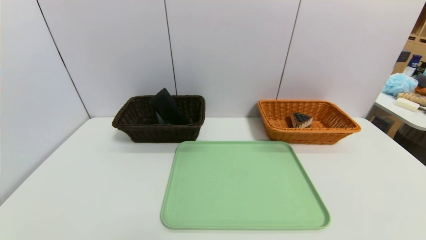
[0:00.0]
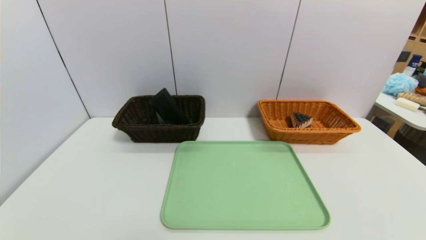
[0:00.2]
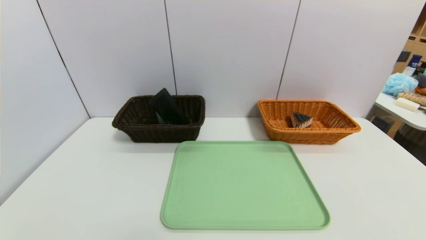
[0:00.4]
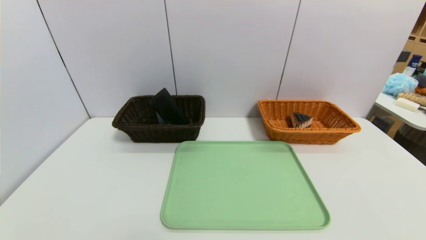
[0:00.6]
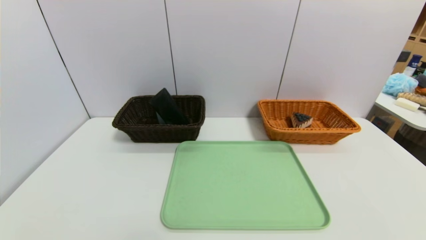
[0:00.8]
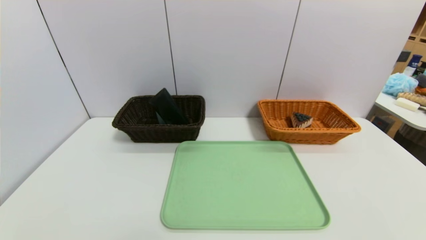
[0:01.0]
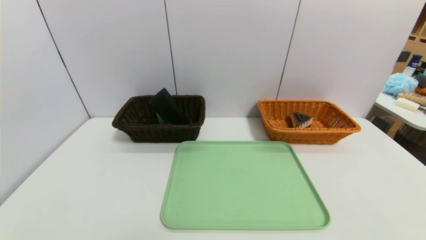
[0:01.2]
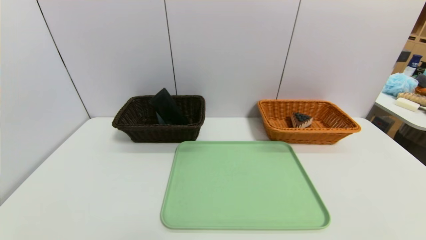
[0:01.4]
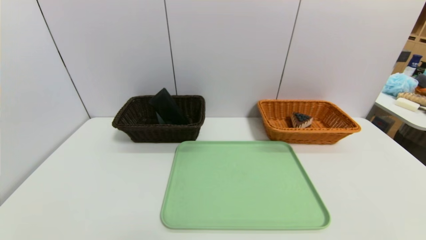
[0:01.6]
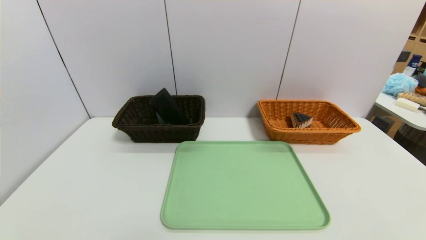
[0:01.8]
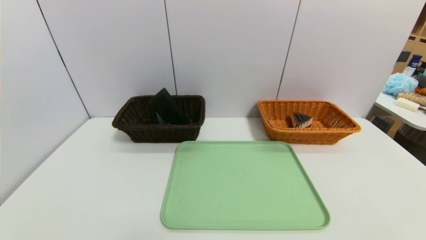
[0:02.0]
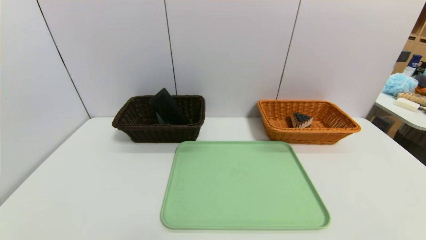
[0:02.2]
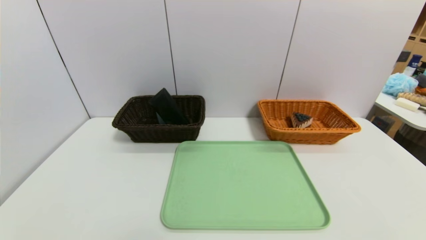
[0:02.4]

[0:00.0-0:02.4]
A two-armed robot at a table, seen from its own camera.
Task of the whole recording: place the food in the right basket with the right gripper, and place the non food items in the left basket with the left gripper.
0:01.2 to 0:02.4: Neither gripper changes place.

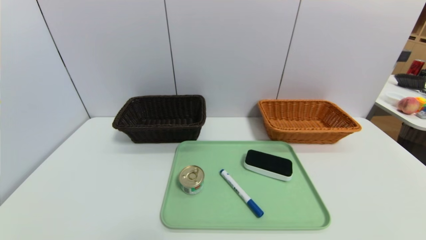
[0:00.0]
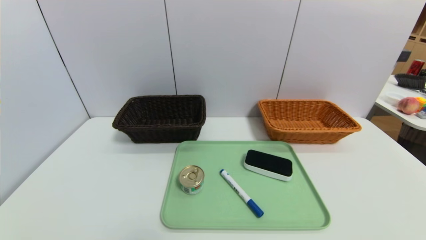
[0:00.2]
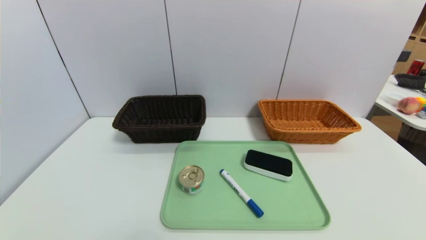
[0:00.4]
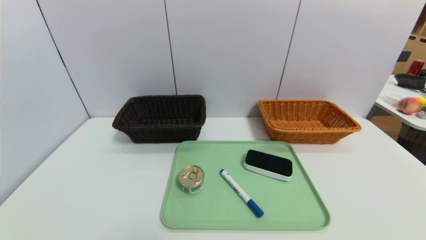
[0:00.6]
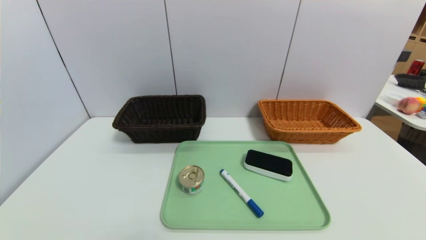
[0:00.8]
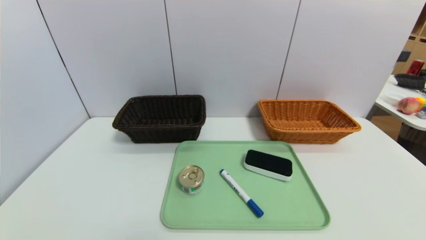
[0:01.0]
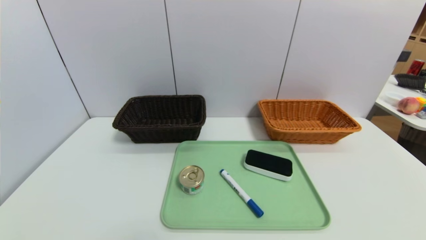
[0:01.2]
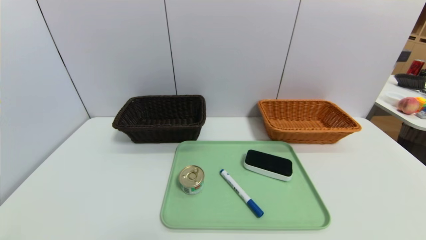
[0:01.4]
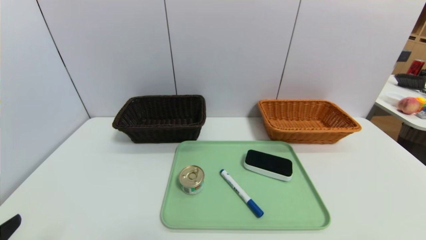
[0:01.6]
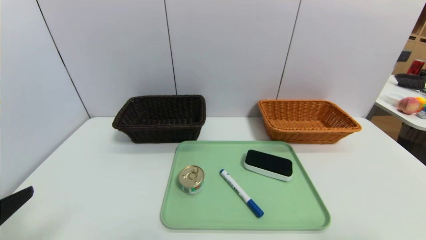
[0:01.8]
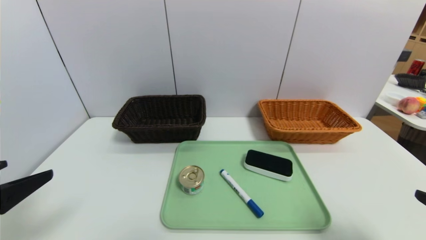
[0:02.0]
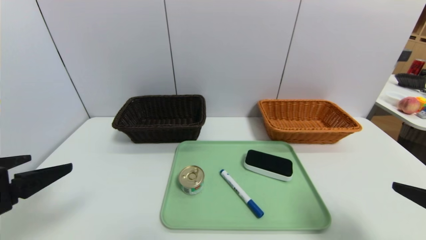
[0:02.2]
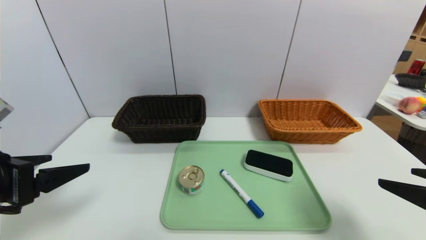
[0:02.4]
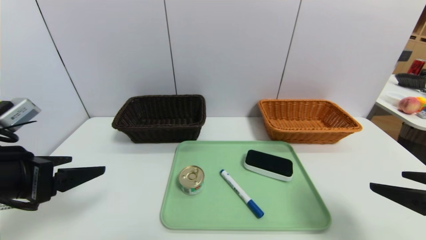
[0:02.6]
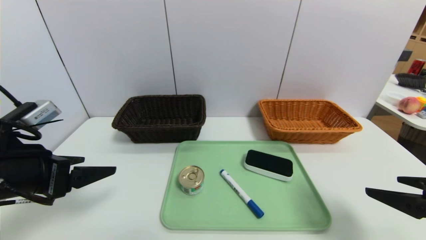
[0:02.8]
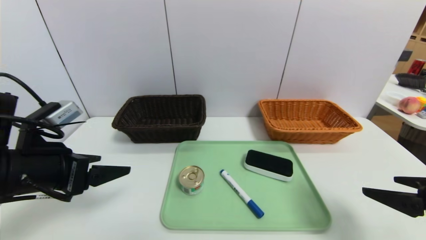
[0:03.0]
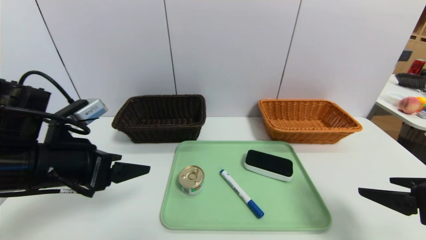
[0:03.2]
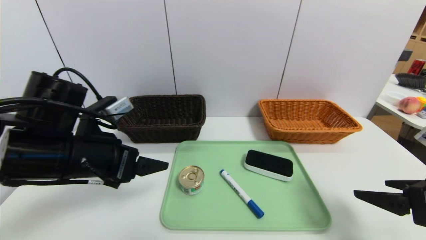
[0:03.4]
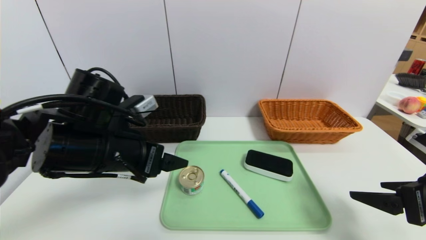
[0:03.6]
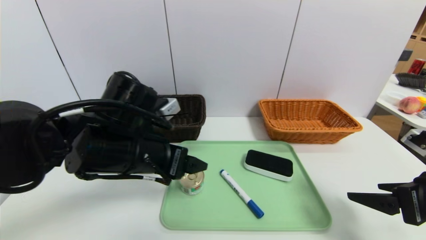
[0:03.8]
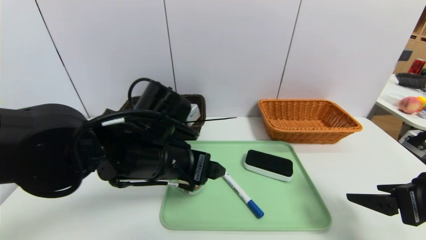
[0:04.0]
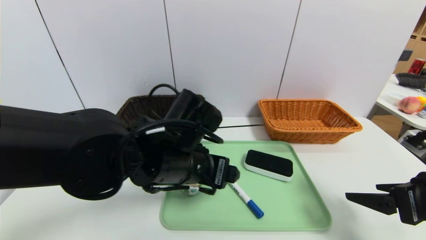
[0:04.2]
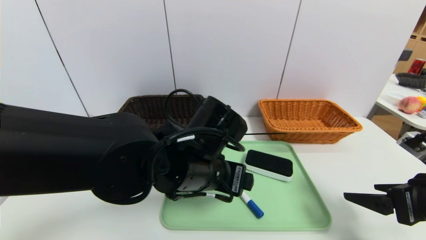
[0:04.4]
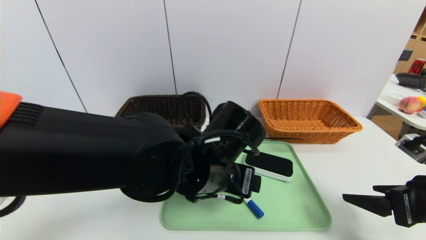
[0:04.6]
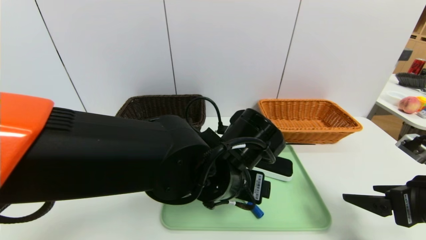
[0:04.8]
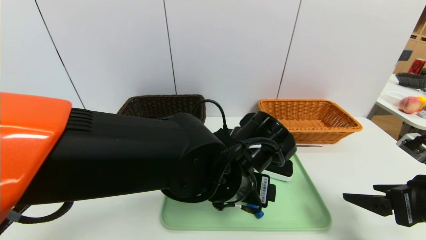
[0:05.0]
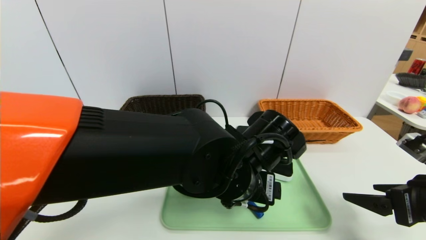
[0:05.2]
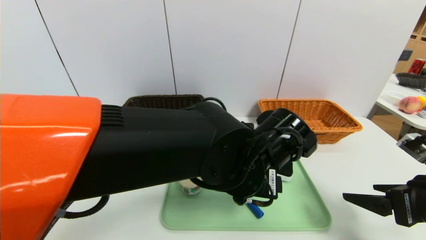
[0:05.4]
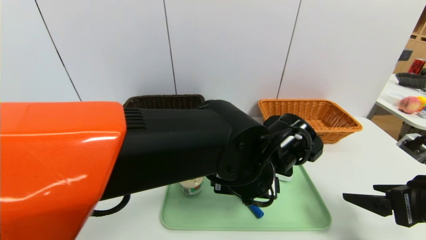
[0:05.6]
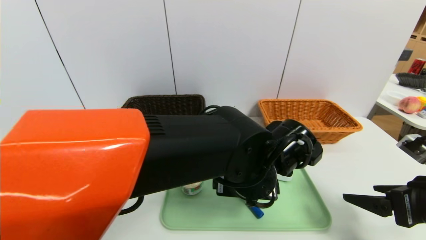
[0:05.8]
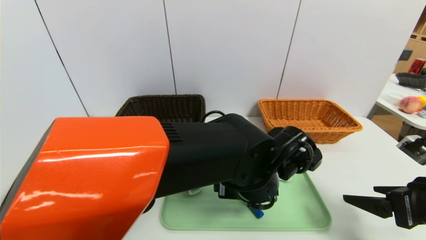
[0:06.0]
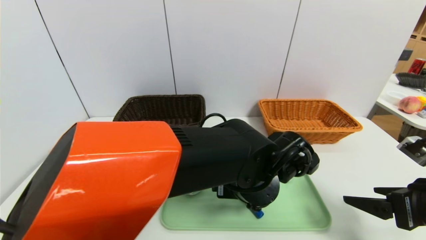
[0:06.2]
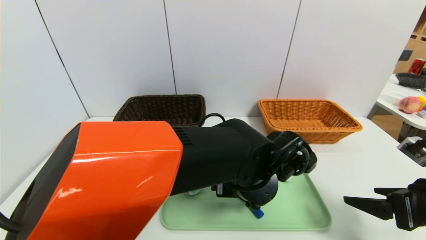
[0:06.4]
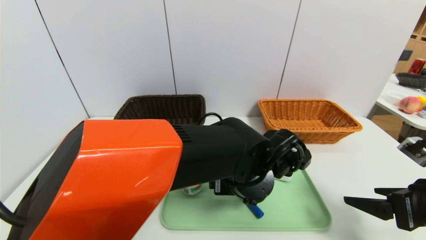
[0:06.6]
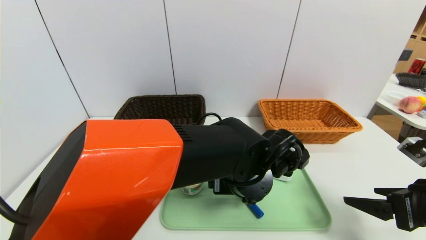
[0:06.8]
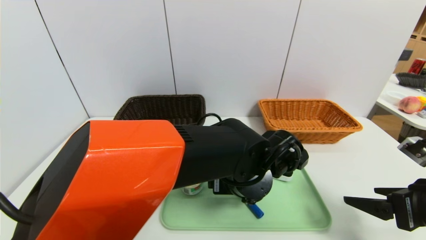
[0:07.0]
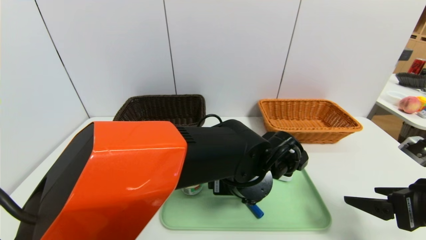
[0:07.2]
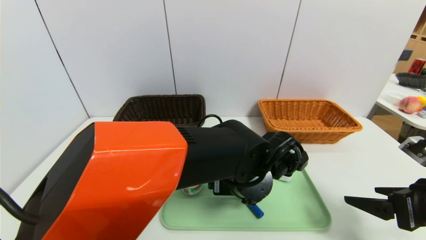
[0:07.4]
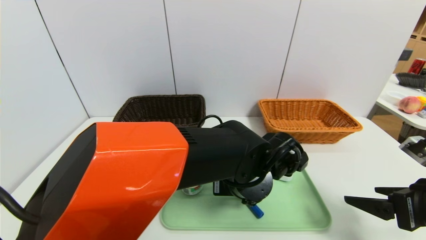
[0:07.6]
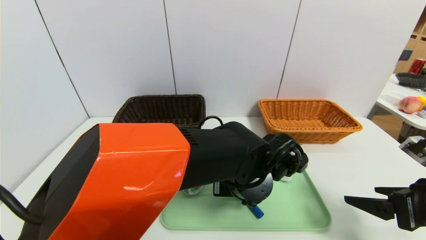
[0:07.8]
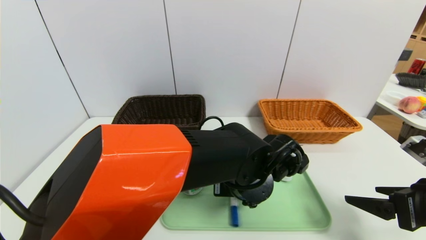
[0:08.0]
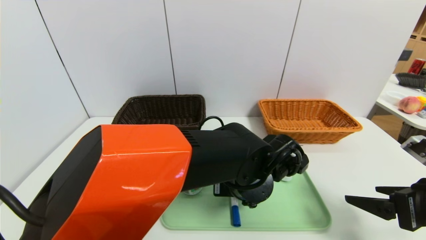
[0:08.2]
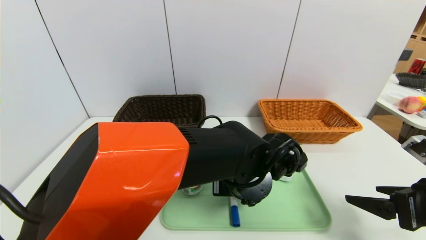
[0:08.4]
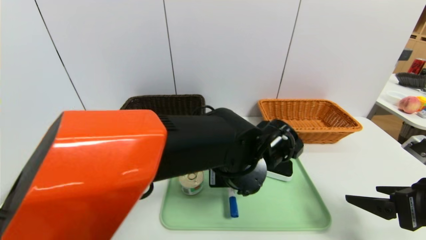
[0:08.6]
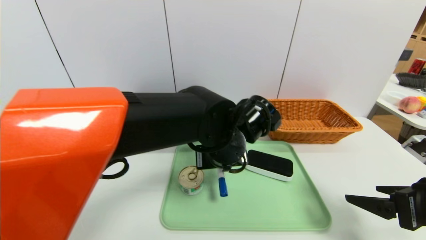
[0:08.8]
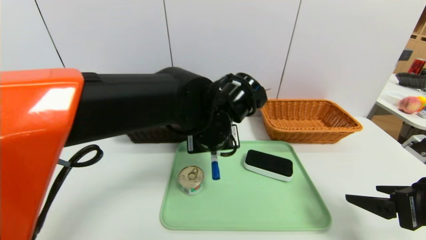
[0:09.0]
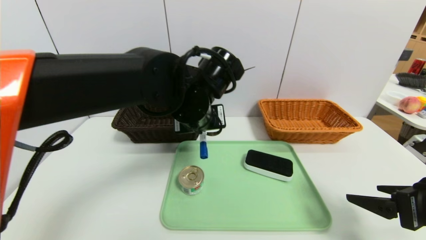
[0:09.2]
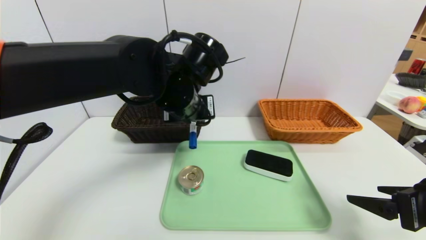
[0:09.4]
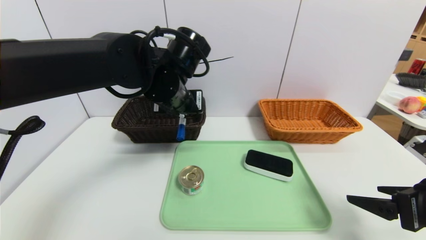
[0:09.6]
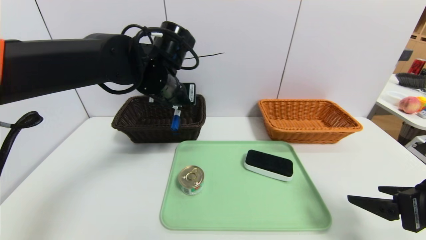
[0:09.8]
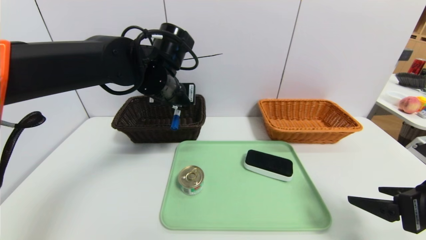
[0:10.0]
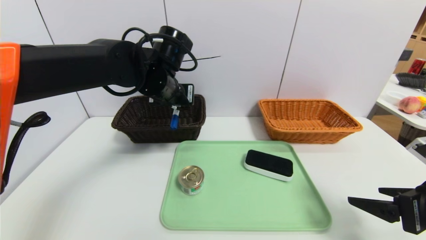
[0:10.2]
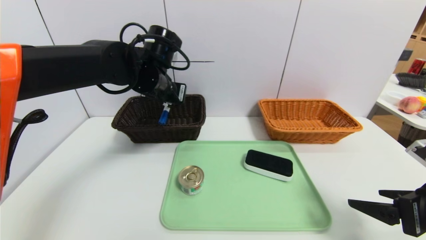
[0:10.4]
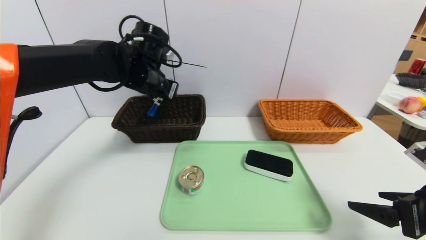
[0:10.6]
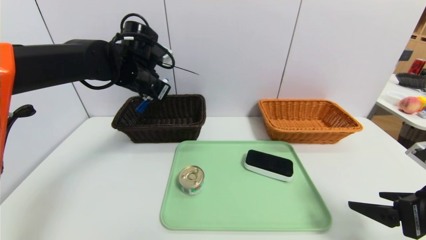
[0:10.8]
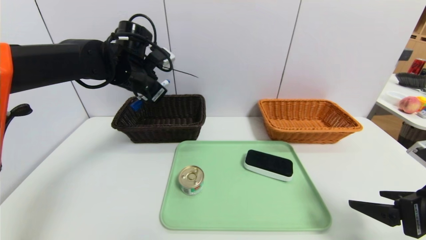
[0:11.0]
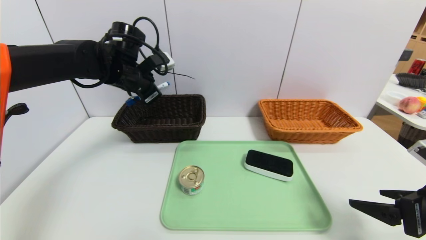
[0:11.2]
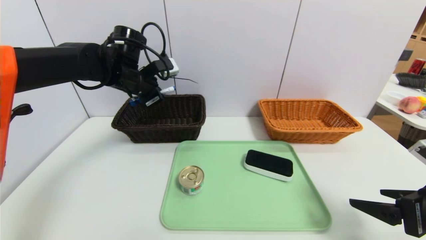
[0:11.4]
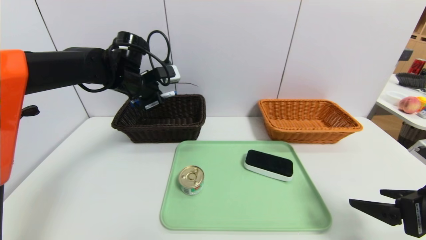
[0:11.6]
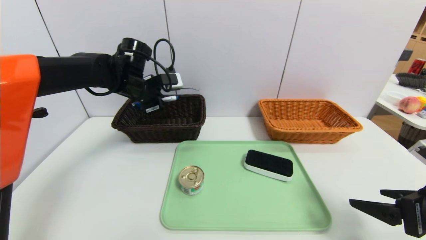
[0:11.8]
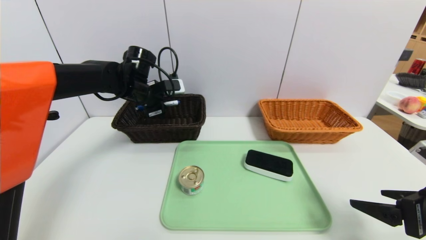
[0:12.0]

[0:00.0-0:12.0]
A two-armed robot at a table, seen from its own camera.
Task of the whole recording: place the food in the right basket with the right gripper, and place the non food items in the left basket with the left gripper.
0:01.6 to 0:03.0: The grippers both shift forward by some 15 cm.
0:03.0 to 0:04.4: The left gripper is displaced to the right by roughly 25 cm.
0:04.4 to 0:06.0: The left gripper moves to the right, approximately 10 cm.
0:06.0 to 0:07.6: The grippers stay close to where they were, moving slightly.
0:07.6 to 0:09.0: The left gripper moves upward and to the left, some 10 cm, and closes.
0:09.0 to 0:10.4: The left gripper shifts some 15 cm to the left and forward.
0:10.4 to 0:12.0: The left gripper shifts approximately 10 cm forward and to the left.

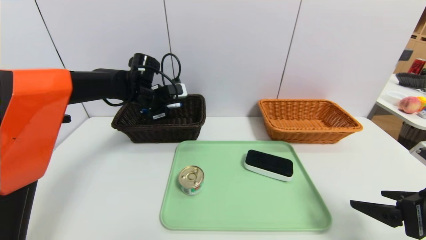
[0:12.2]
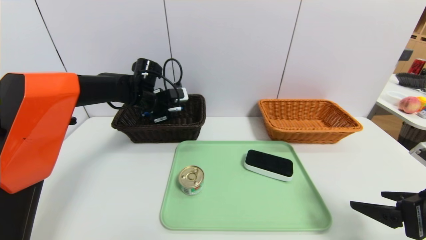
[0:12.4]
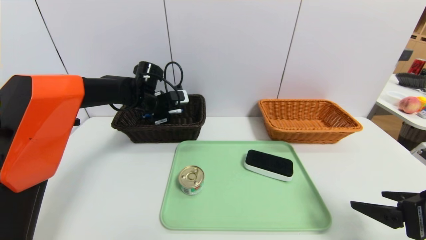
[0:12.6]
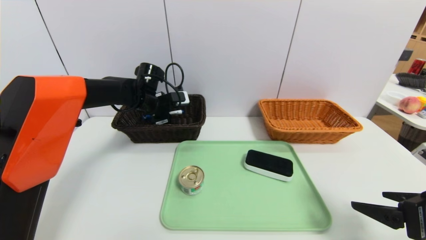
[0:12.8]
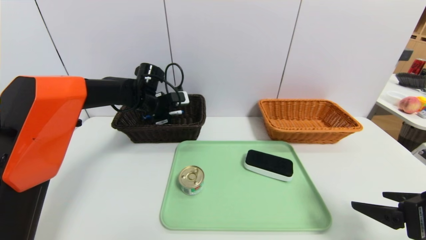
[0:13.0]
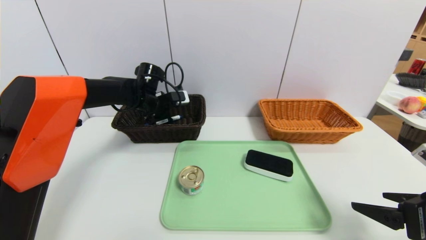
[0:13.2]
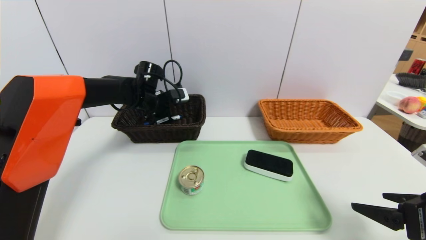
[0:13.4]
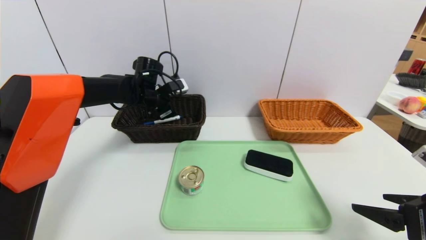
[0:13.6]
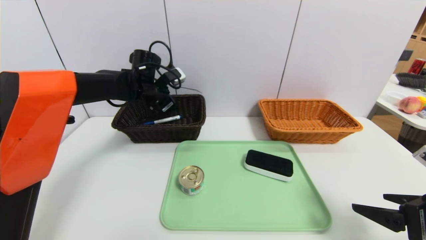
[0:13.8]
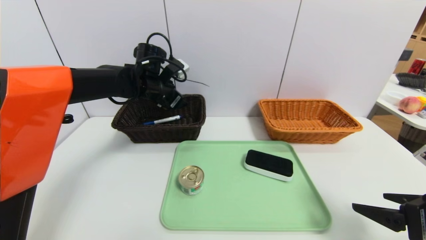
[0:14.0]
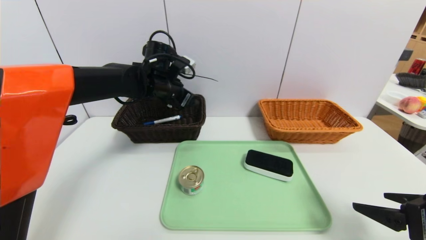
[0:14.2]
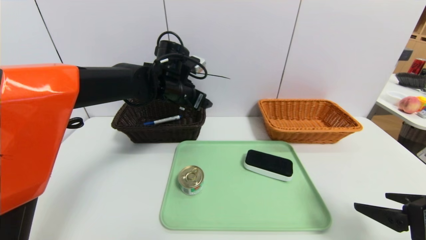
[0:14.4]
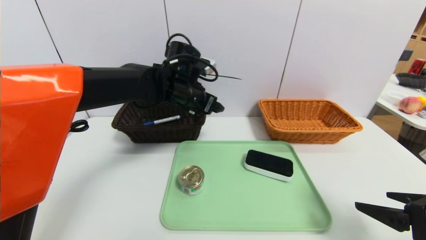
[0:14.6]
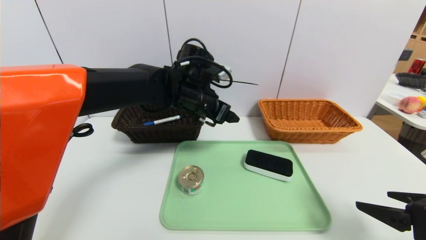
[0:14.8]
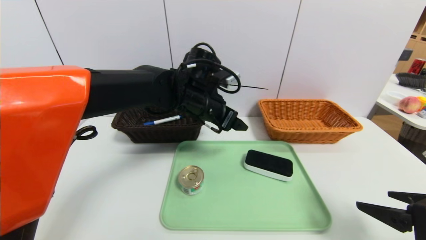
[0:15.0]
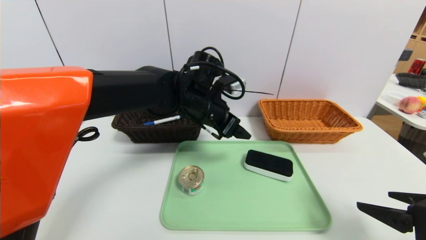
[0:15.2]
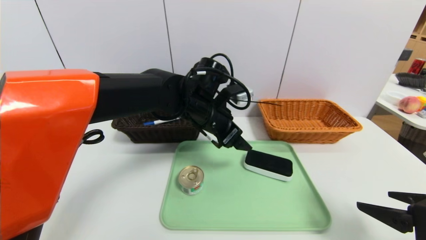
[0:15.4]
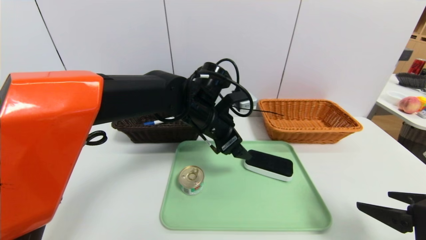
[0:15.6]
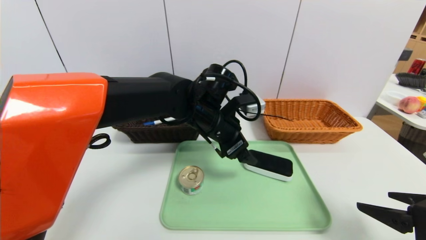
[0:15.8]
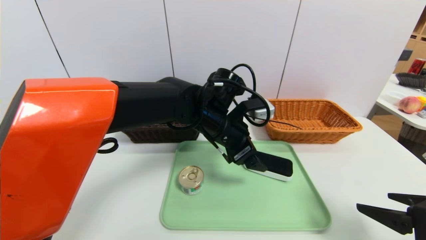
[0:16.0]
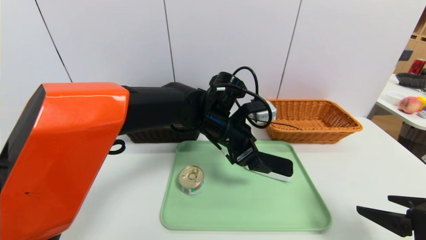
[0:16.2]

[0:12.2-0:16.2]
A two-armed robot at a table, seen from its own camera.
Task of the whole recording: place the food in the right basket with the right gripper, and place the non food items in the left basket with the left gripper.
0:12.2 to 0:13.6: The left gripper opens.
0:13.6 to 0:14.8: The left gripper travels to the right and backward by approximately 15 cm.
0:14.8 to 0:16.2: The left gripper is displaced to the right by about 5 cm.
